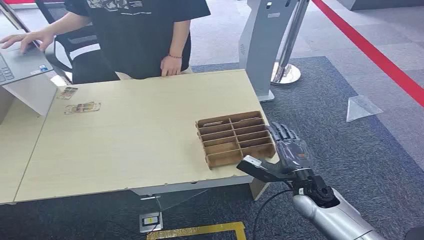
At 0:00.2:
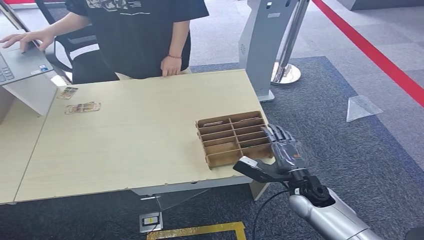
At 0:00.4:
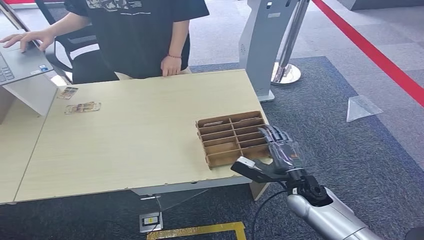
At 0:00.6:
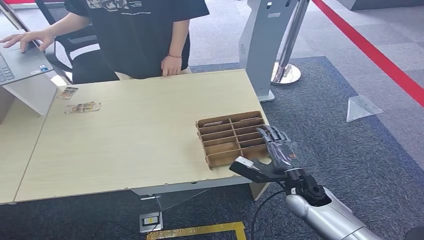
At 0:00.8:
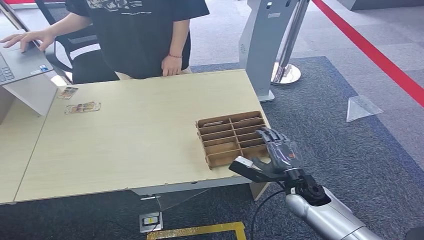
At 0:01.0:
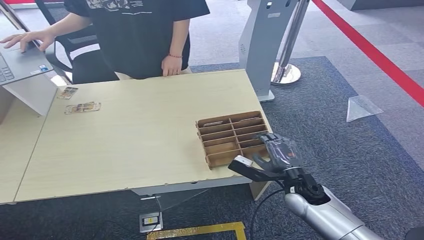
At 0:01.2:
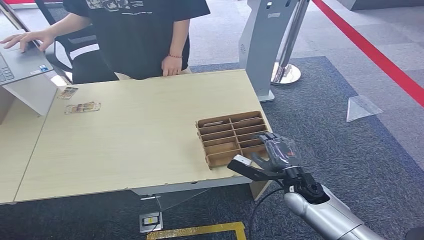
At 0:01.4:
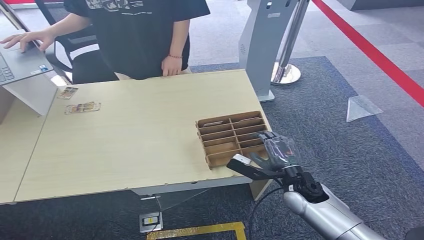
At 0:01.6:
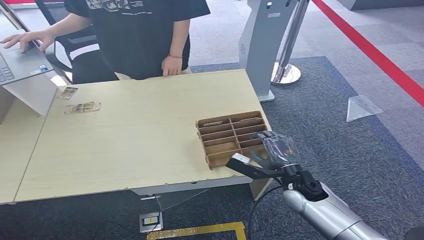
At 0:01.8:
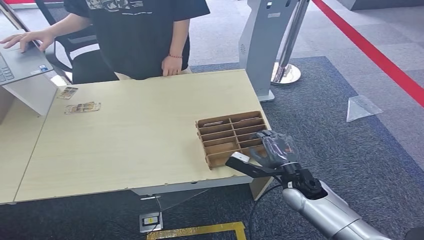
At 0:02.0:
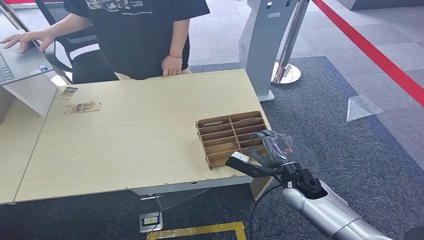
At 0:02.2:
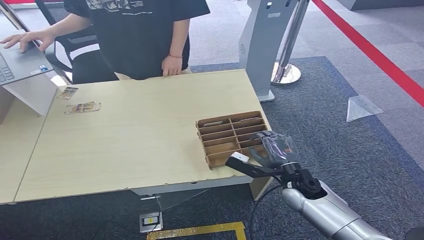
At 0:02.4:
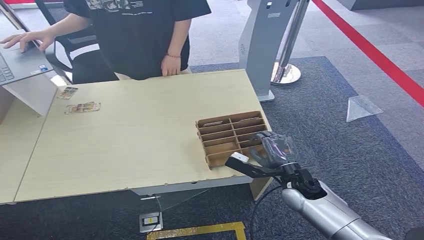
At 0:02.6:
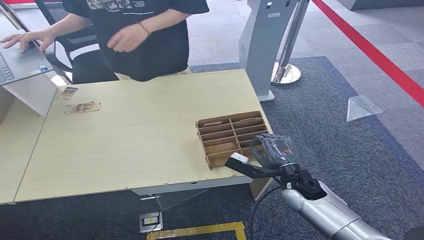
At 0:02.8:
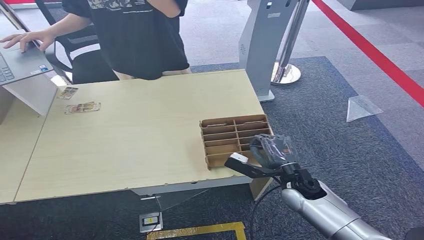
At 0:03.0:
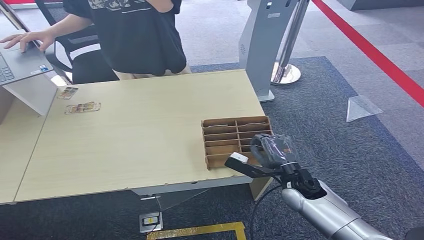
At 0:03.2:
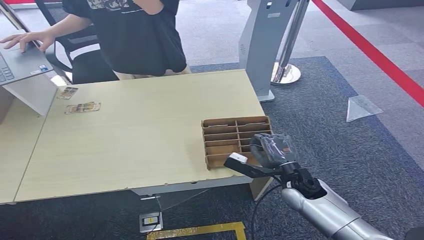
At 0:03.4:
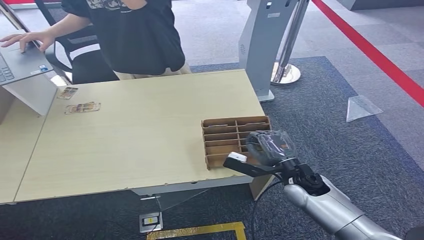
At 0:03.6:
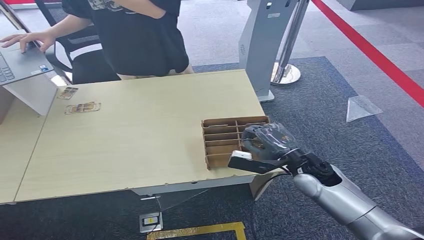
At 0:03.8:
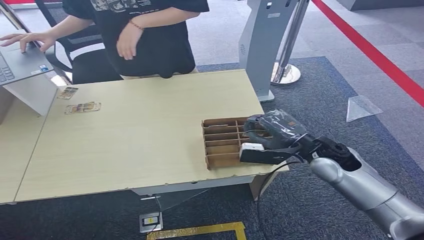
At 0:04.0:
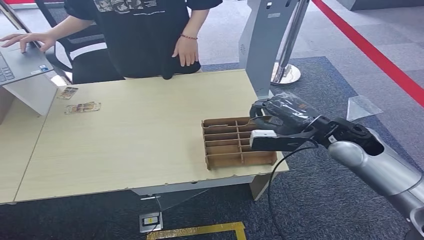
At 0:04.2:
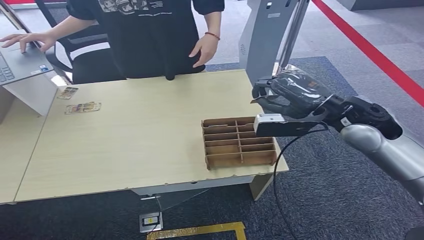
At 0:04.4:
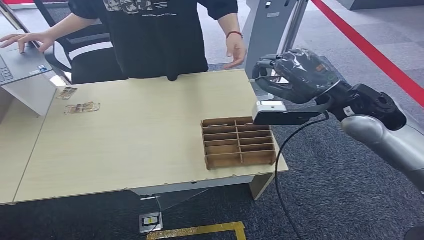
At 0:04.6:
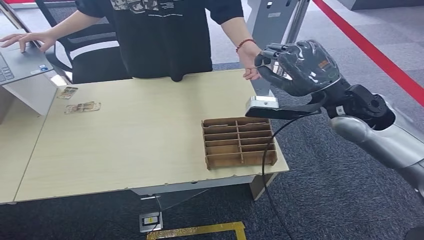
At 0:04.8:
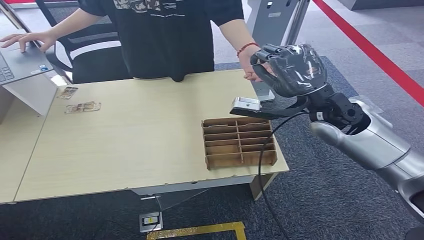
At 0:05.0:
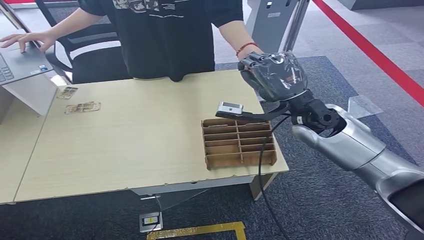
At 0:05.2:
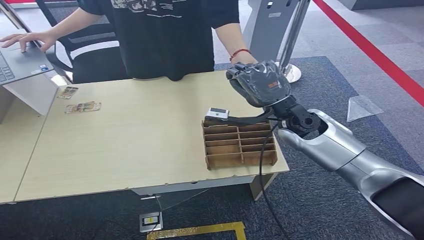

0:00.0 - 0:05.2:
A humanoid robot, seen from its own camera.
Step, 0:00.0 - 0:04.2: Pick up the room card from the card holder.
Step, 0:04.6 - 0:05.2: Hand the room card to the target.
0:01.8 - 0:03.4: The hands stay close to where they were, moving slightly.
